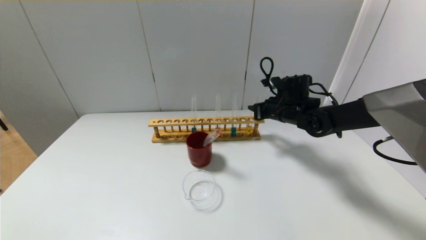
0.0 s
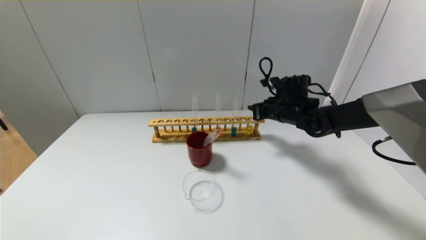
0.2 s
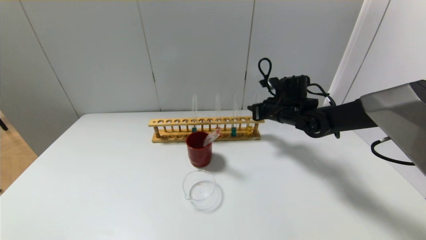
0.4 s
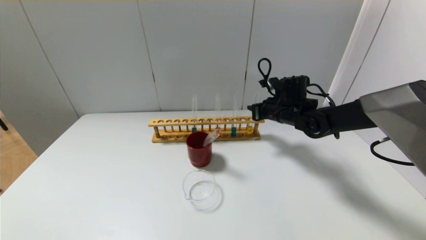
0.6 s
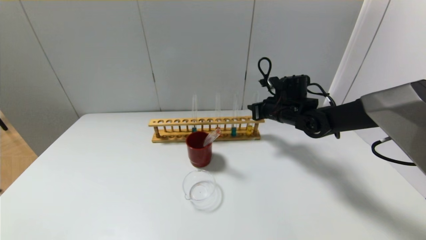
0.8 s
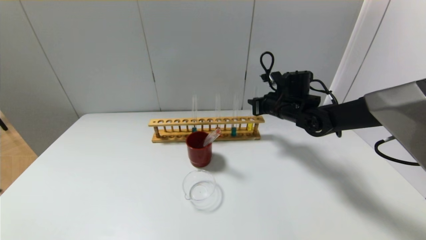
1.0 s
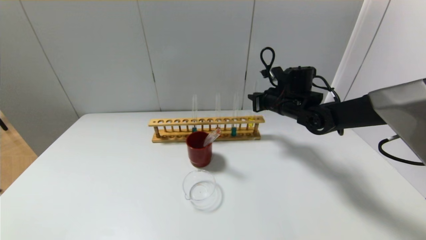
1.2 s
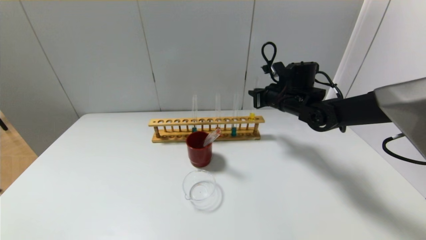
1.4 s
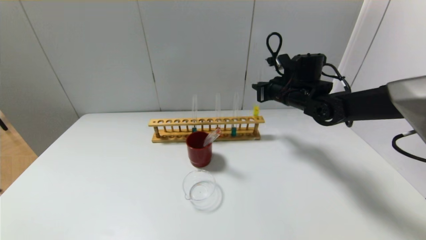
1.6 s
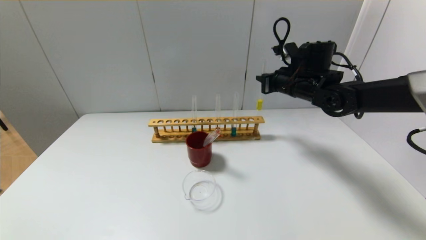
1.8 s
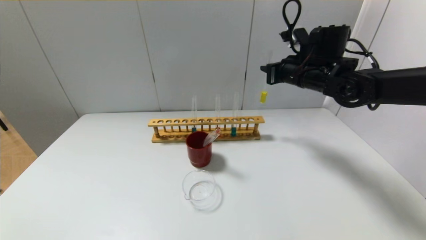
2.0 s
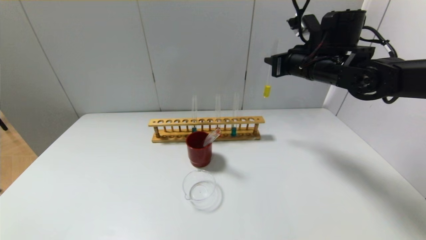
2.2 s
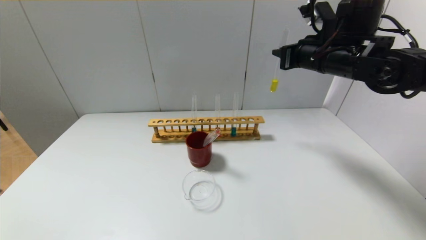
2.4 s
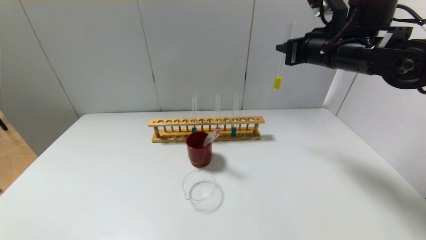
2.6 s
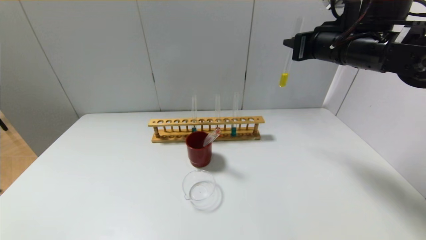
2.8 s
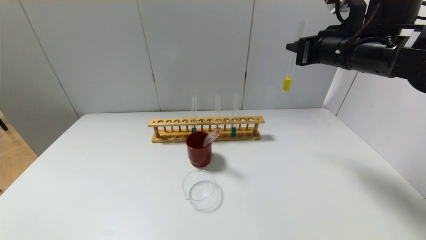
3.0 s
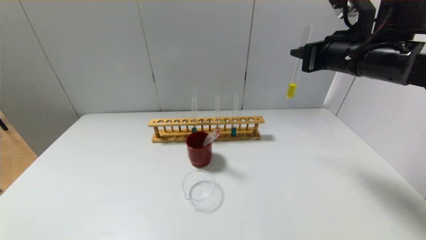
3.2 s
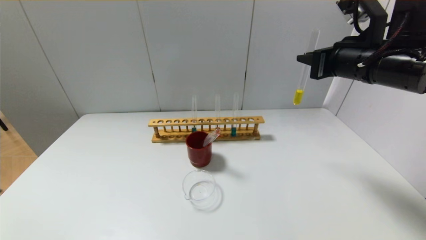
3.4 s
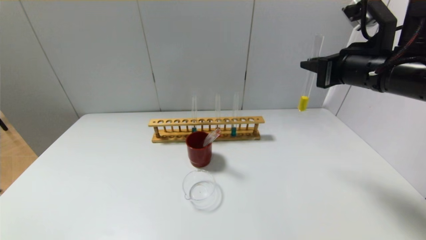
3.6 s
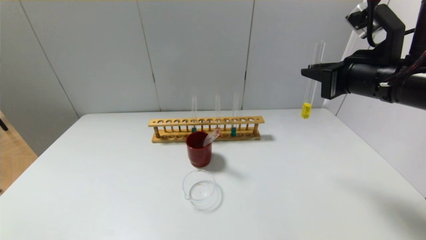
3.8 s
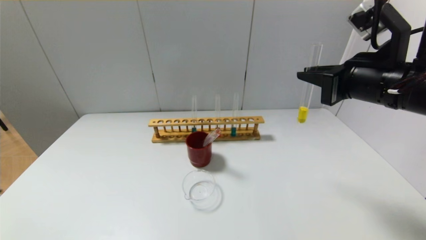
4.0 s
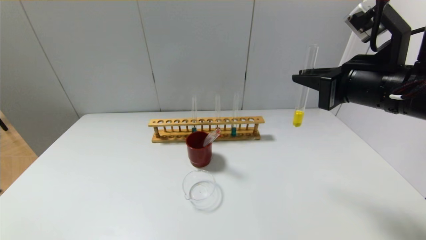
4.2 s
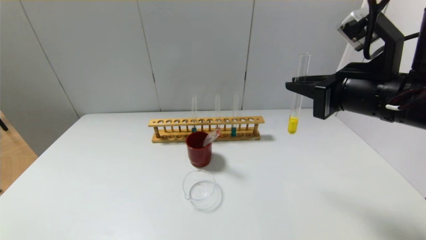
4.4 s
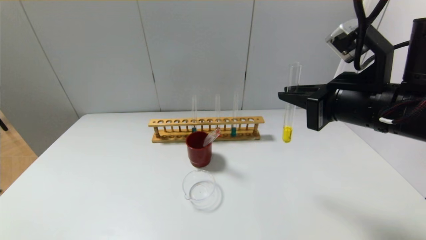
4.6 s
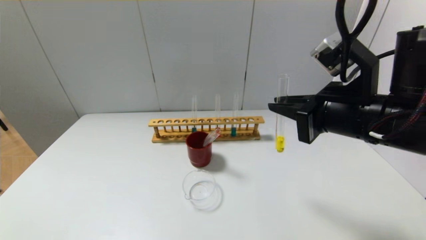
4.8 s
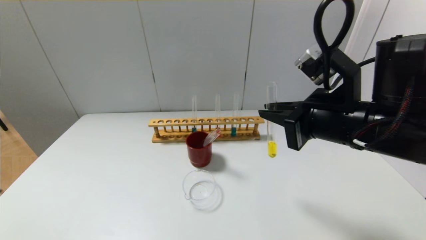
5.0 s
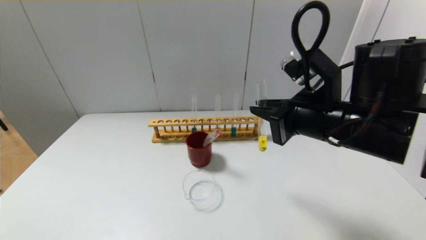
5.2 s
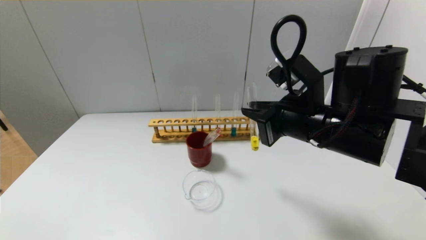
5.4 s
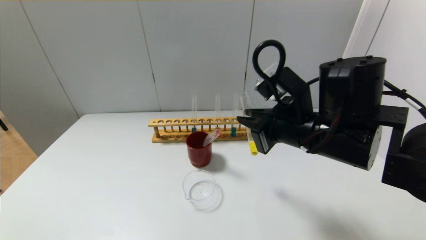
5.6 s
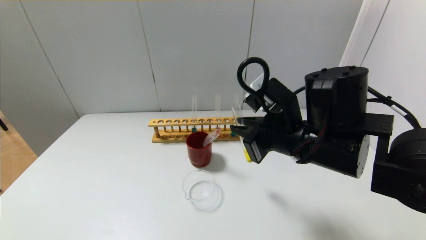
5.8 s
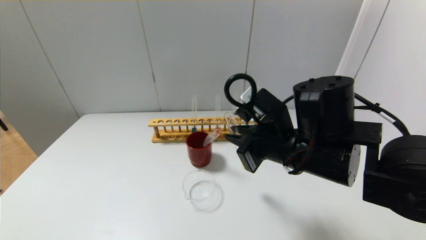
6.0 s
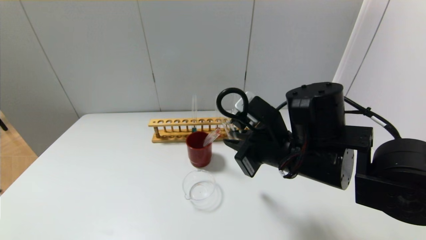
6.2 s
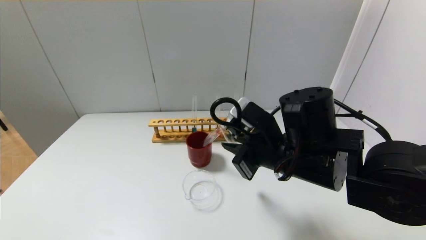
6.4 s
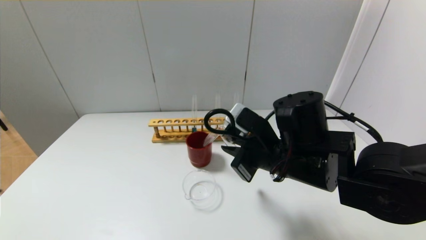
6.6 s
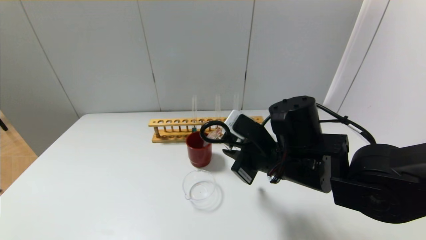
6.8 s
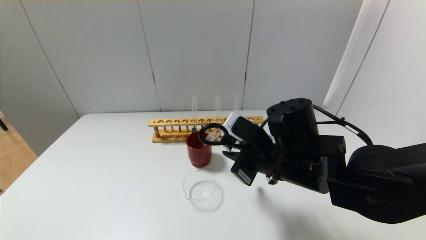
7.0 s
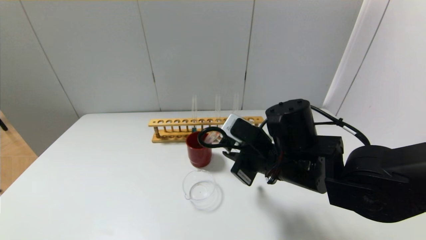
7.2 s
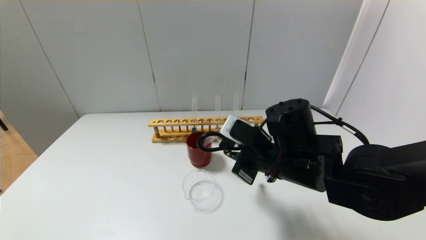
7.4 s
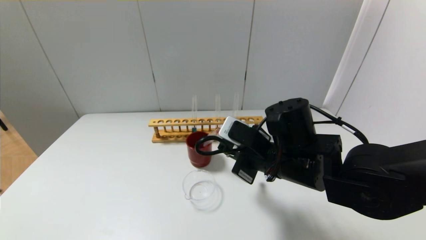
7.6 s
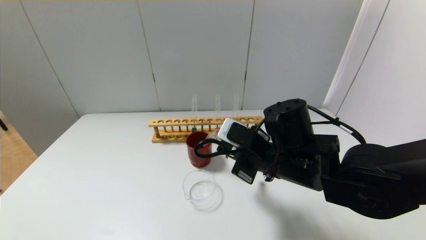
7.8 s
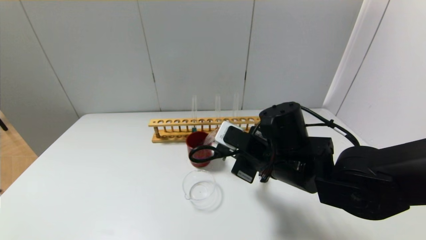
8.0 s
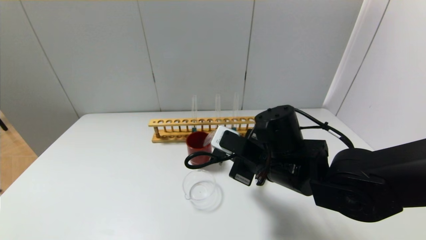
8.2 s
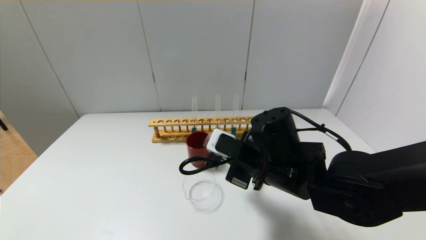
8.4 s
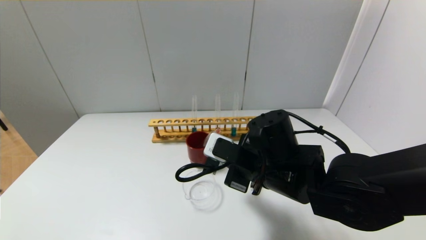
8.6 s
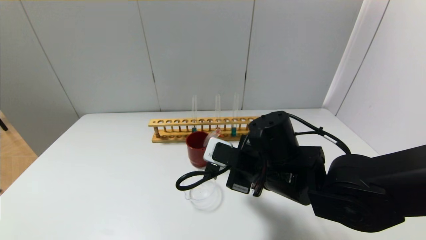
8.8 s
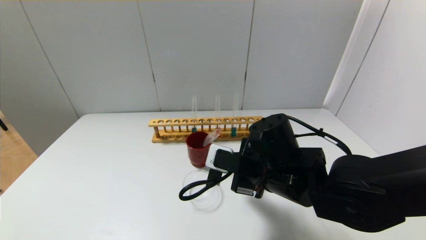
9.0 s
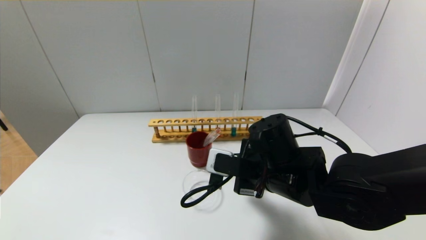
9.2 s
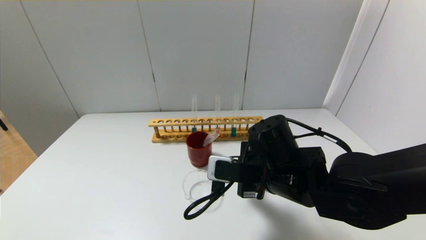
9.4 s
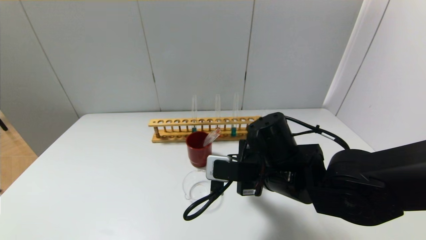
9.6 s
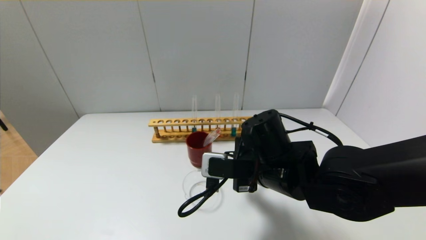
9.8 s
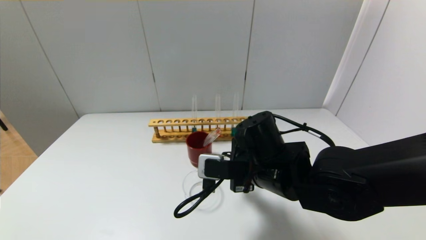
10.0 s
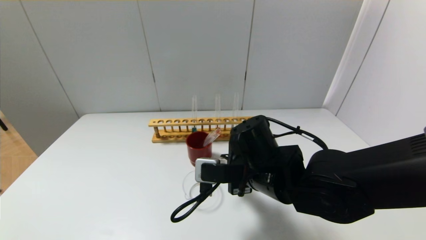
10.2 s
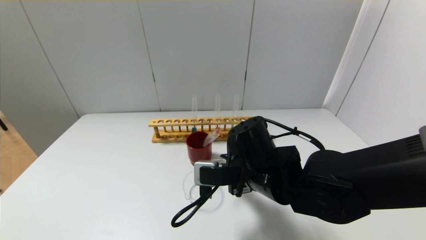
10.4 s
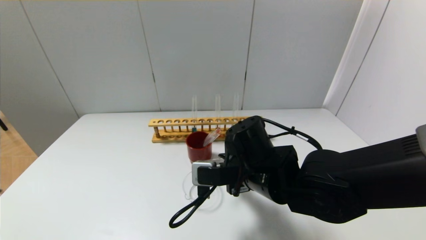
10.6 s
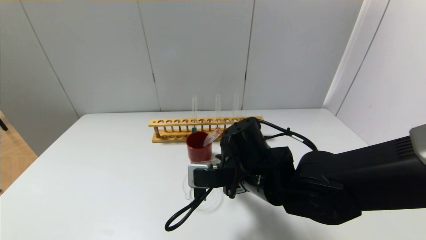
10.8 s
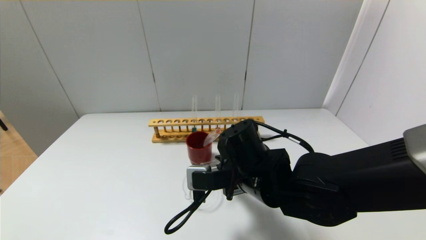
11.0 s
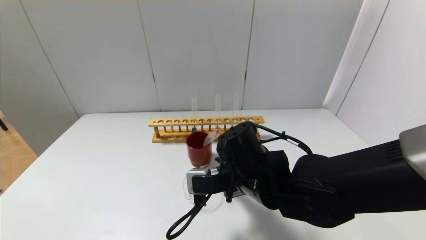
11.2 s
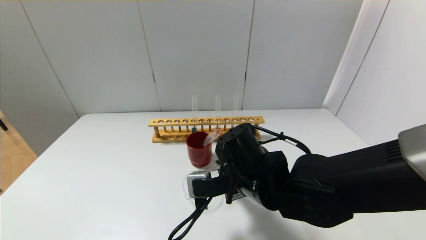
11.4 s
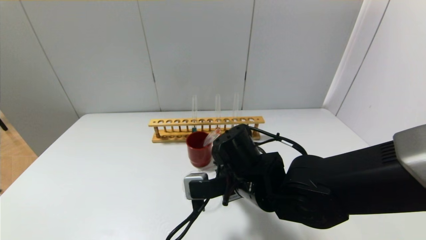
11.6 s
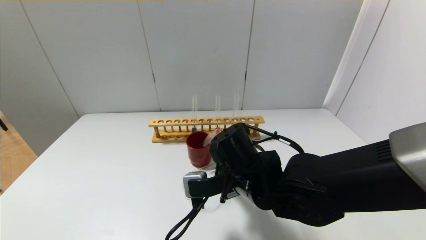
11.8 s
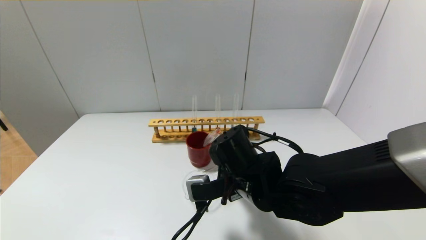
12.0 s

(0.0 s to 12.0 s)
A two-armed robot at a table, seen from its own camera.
0.0 s - 1.6 s: The right gripper shifts approximately 5 cm upward.
1.6 s - 3.0 s: The right gripper heads upward and backward, covering some 15 cm.
3.0 s - 4.4 s: The right gripper heads backward, covering approximately 10 cm.
4.4 s - 6.0 s: The right gripper moves to the left and downward, roughly 10 cm.
6.0 s - 7.6 s: There are only small adjustments of the grippers.
7.6 s - 9.0 s: The grippers stay close to where they were, moving slightly.
9.0 s - 10.4 s: The grippers make only small movements.
10.4 s - 12.0 s: The grippers move only a little.

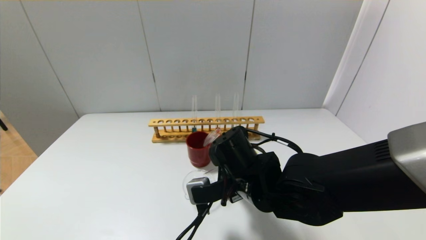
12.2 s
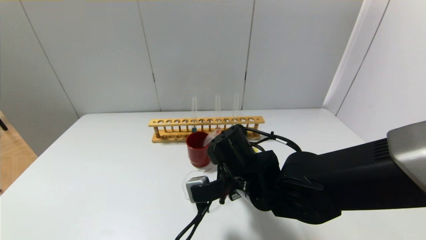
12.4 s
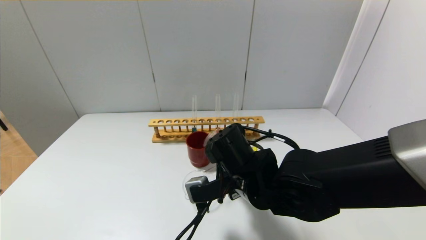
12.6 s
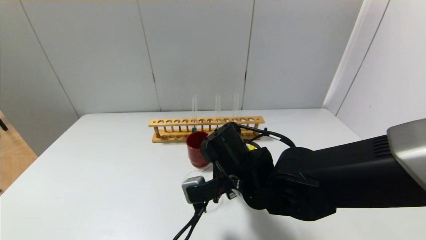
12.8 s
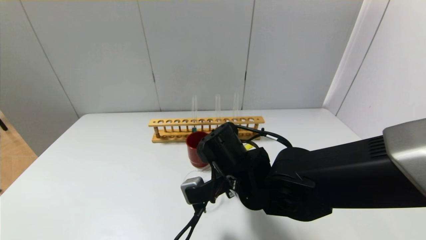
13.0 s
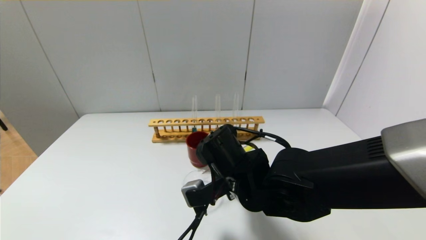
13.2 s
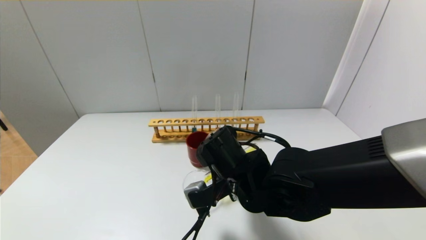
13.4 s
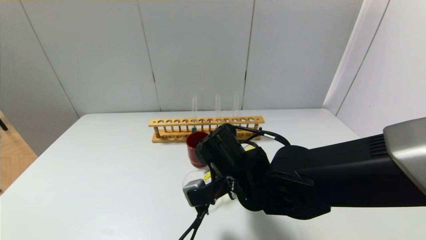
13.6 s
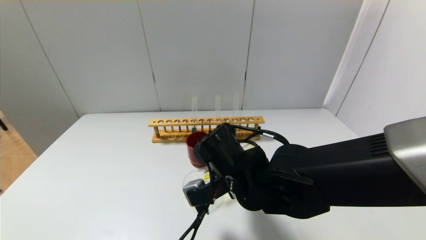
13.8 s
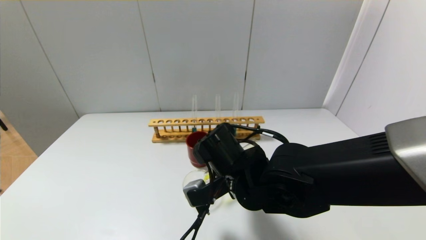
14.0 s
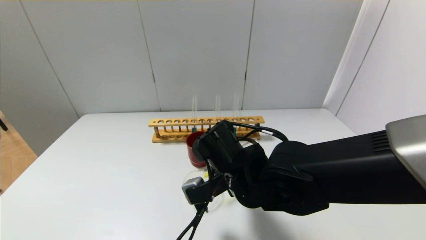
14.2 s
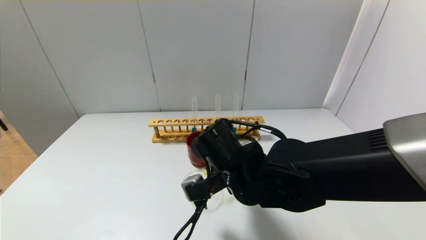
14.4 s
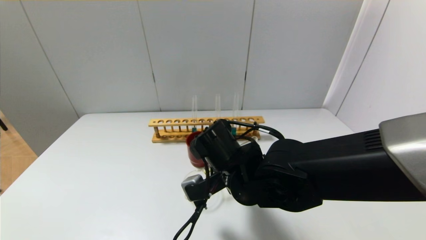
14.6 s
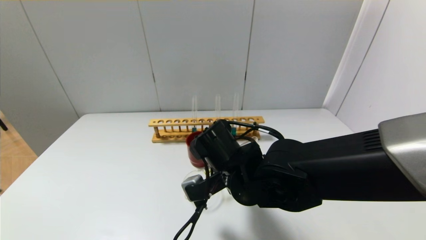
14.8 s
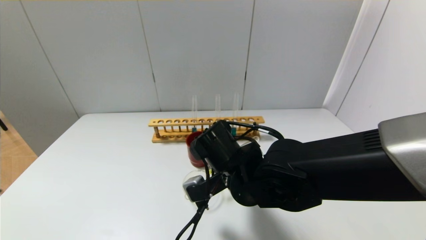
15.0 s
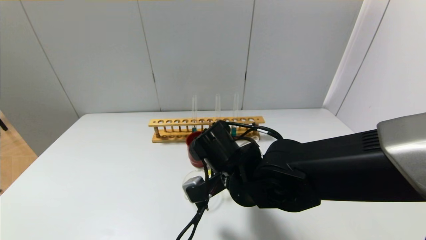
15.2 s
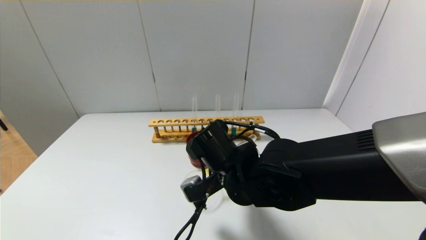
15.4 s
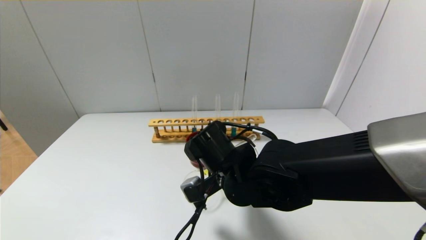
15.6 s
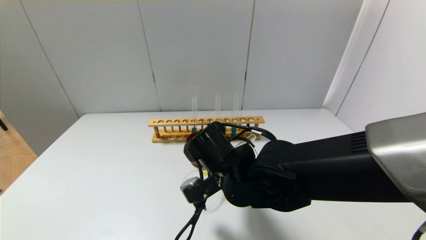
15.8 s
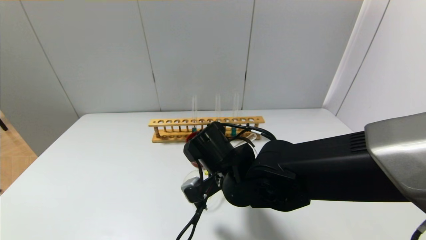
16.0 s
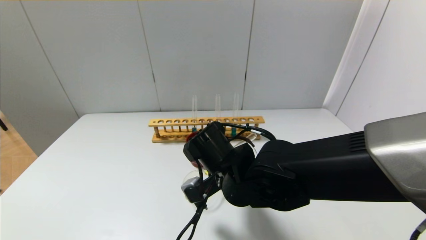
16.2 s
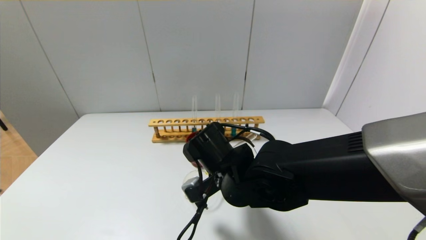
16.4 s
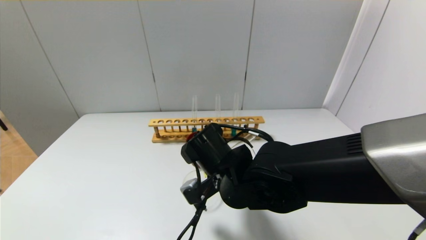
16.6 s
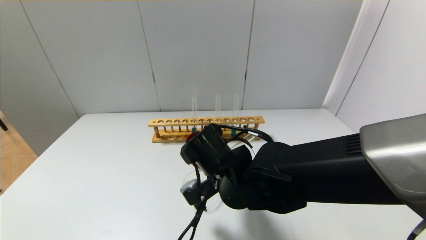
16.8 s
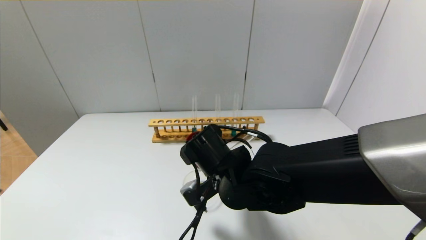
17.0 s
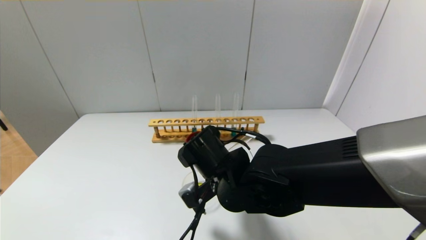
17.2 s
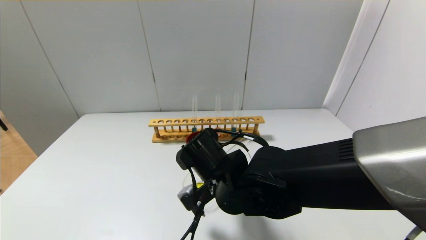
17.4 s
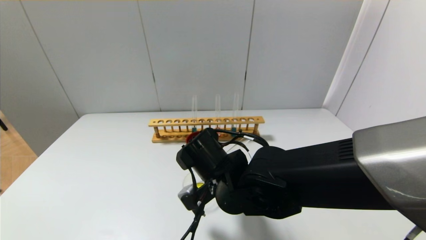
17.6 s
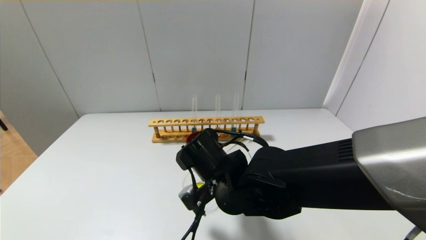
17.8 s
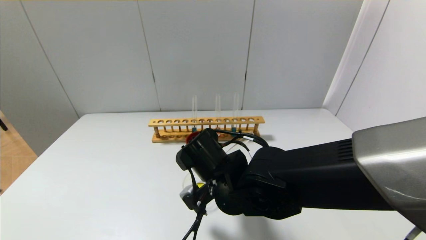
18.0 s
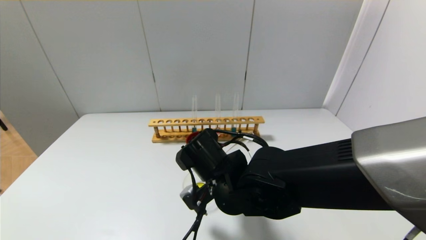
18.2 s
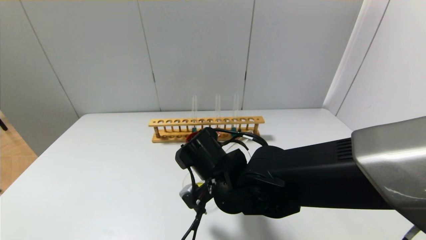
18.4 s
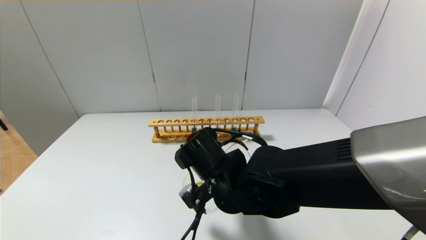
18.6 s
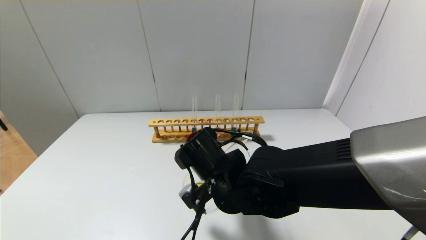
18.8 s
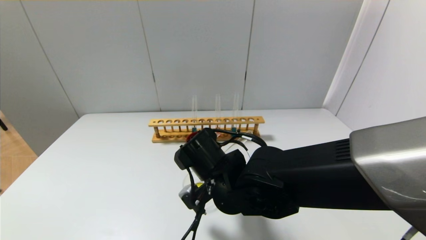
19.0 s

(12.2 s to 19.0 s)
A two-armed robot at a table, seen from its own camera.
12.2 s - 13.6 s: The grippers stay close to where they were, moving slightly.
13.6 s - 15.0 s: Both grippers stay put.
15.0 s - 16.2 s: The two grippers keep their place.
16.2 s - 17.6 s: Both grippers stay about where they are.
17.6 s - 19.0 s: Both grippers stay put.
